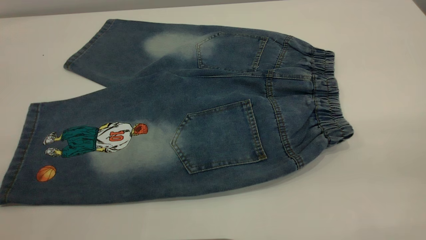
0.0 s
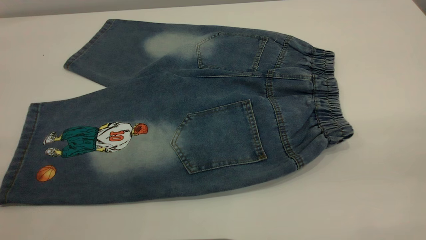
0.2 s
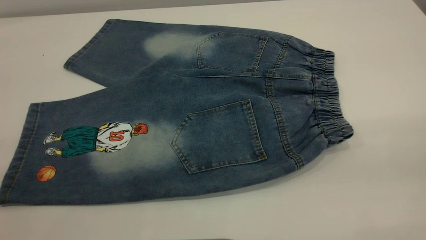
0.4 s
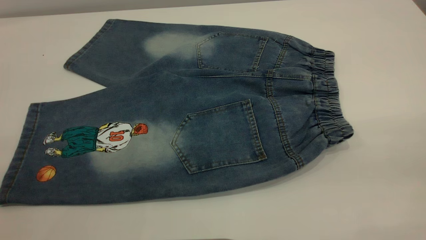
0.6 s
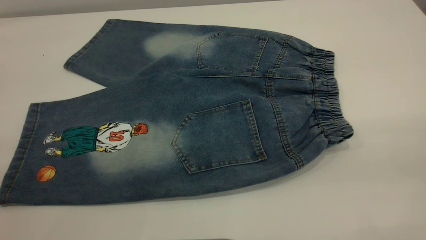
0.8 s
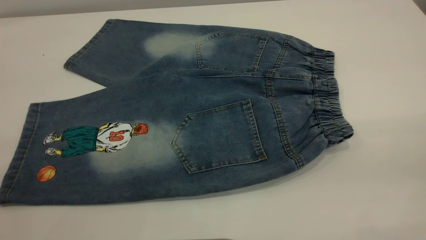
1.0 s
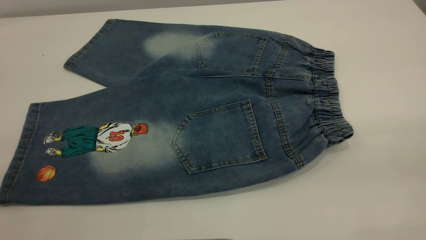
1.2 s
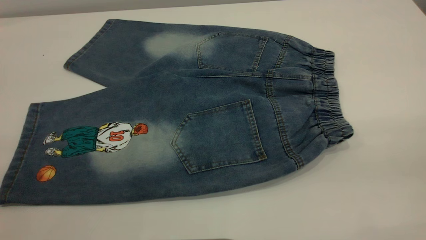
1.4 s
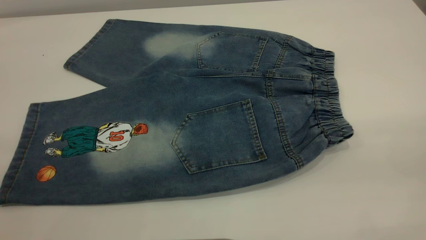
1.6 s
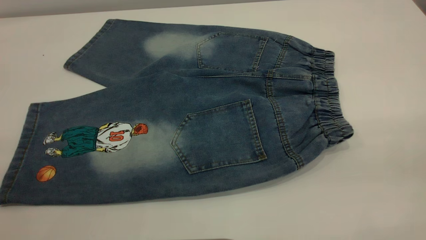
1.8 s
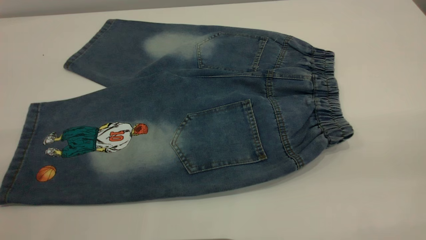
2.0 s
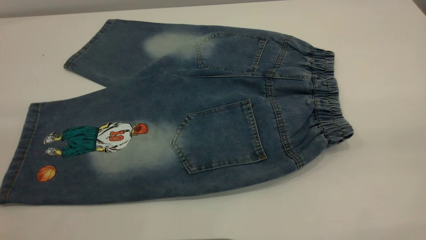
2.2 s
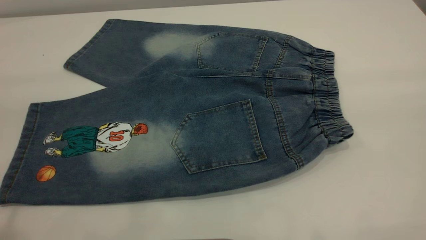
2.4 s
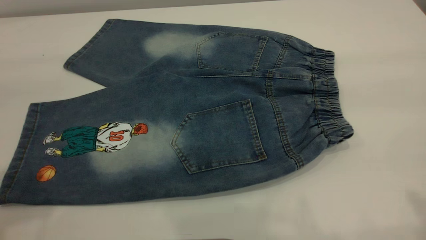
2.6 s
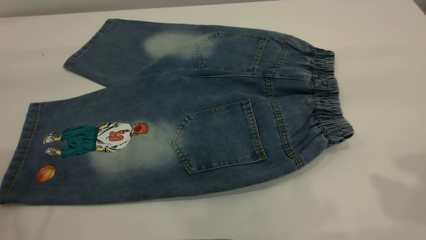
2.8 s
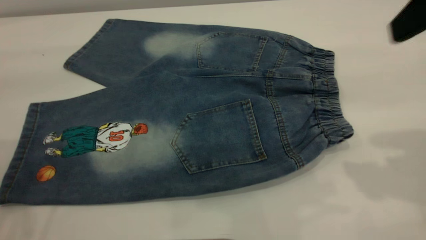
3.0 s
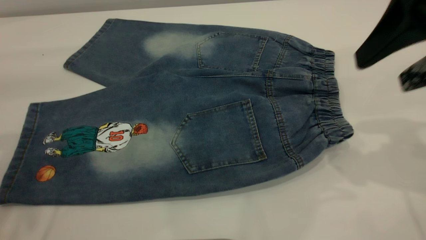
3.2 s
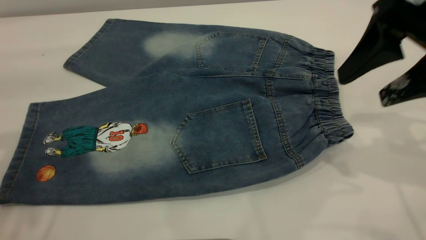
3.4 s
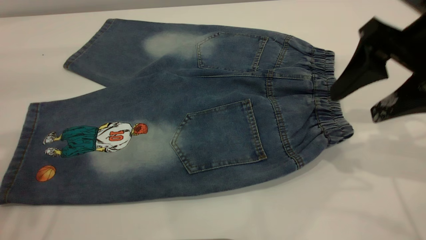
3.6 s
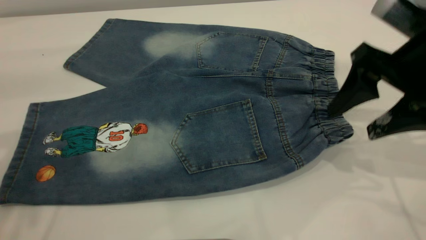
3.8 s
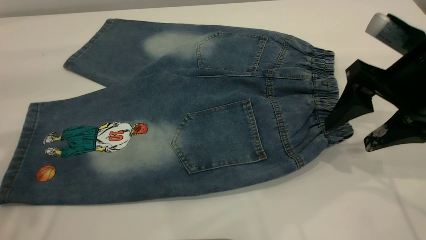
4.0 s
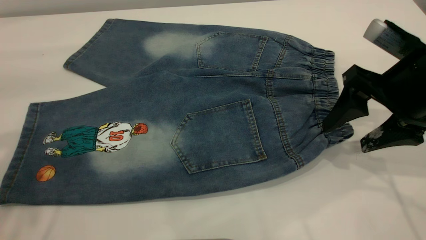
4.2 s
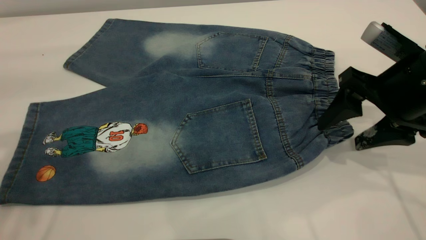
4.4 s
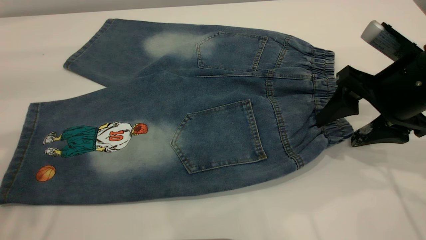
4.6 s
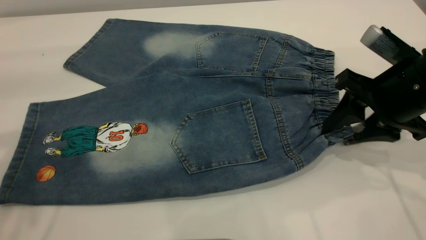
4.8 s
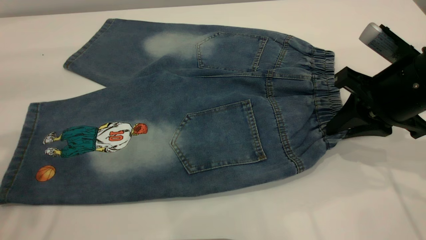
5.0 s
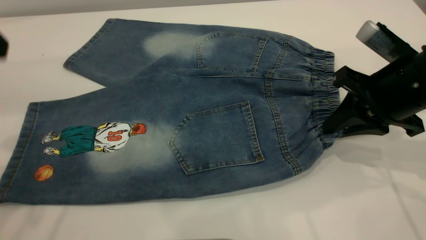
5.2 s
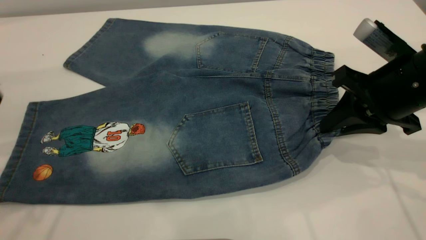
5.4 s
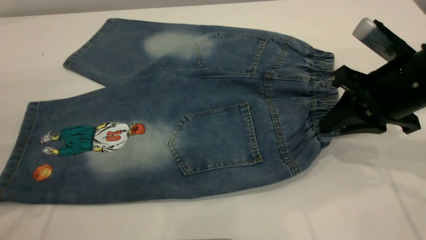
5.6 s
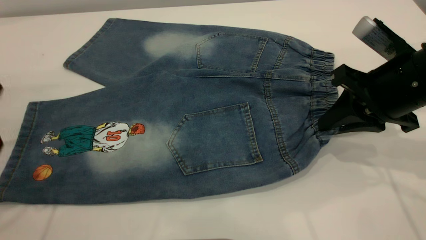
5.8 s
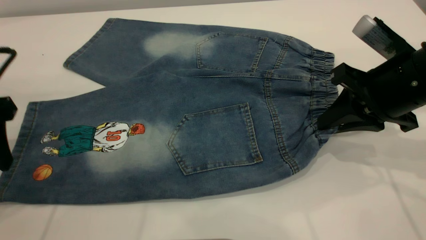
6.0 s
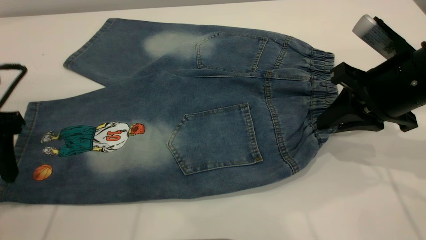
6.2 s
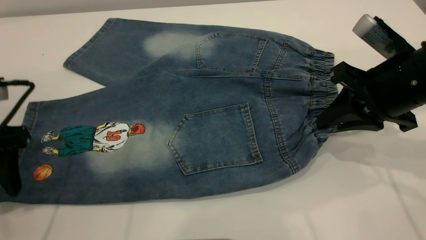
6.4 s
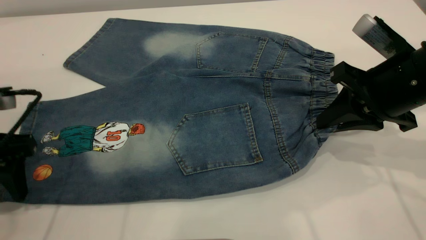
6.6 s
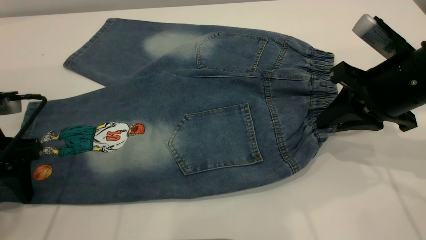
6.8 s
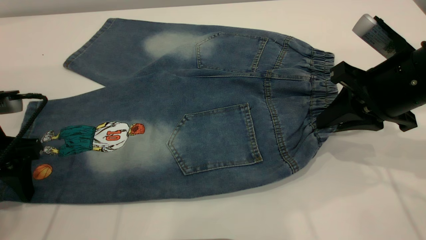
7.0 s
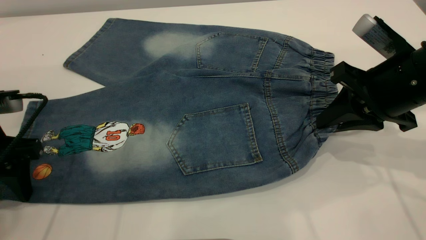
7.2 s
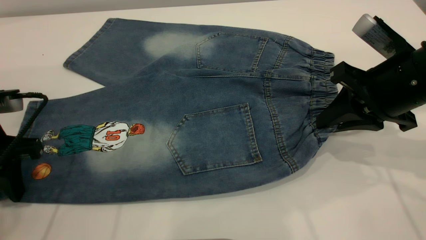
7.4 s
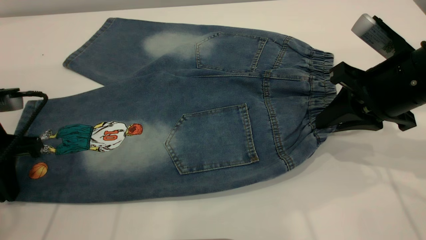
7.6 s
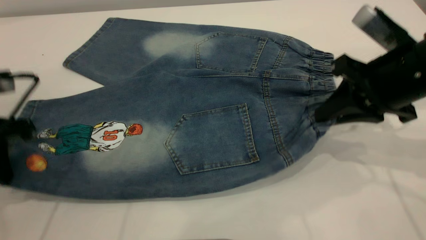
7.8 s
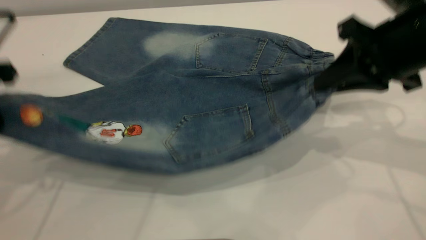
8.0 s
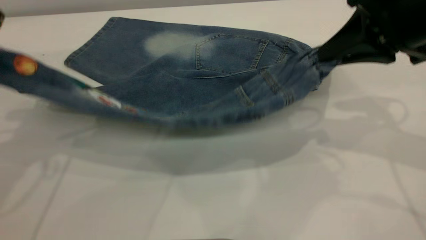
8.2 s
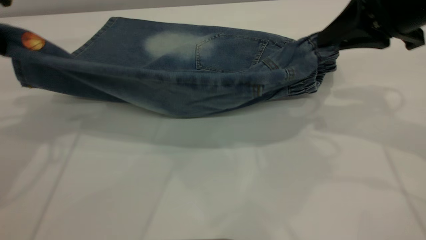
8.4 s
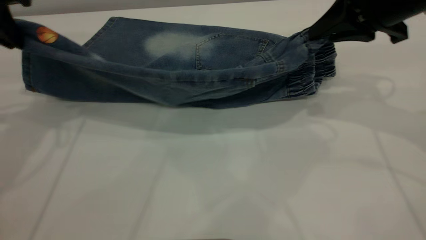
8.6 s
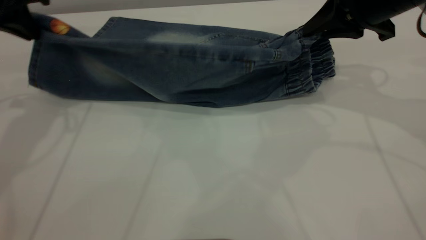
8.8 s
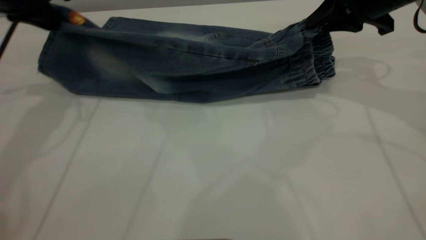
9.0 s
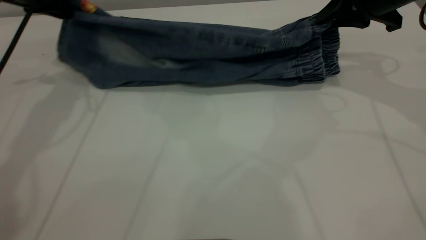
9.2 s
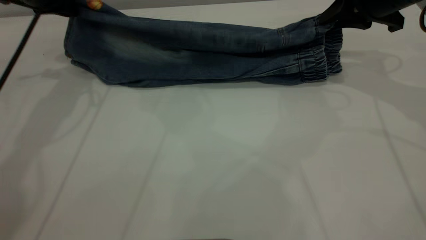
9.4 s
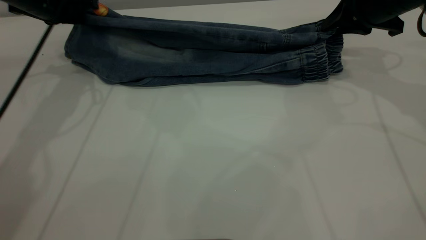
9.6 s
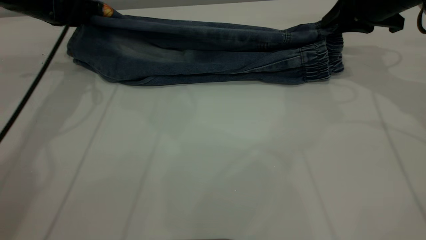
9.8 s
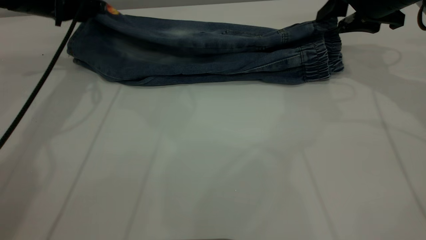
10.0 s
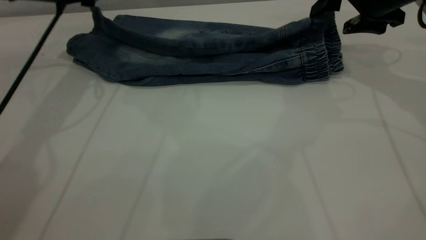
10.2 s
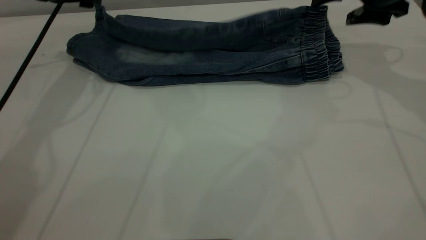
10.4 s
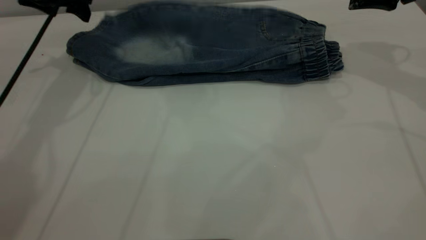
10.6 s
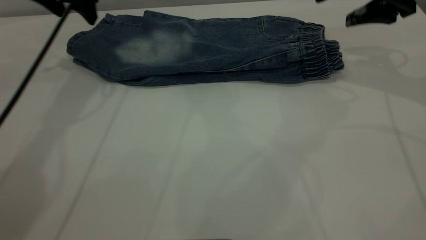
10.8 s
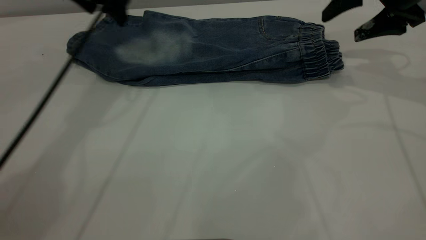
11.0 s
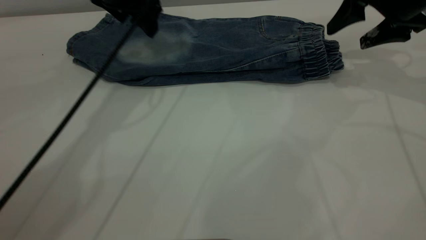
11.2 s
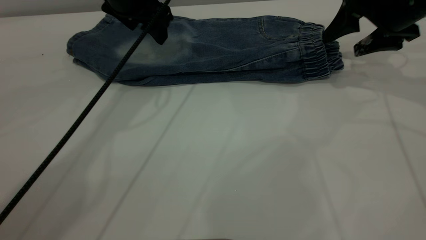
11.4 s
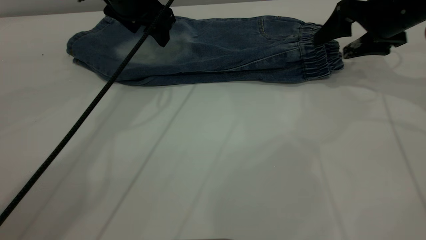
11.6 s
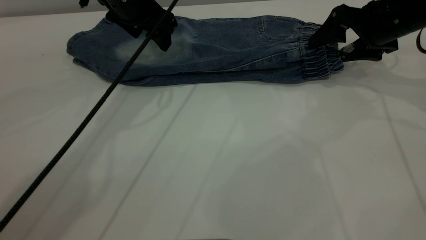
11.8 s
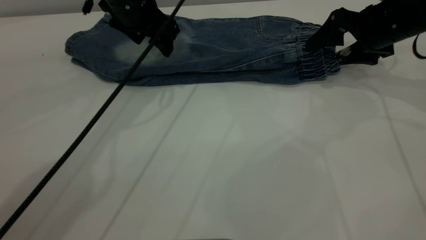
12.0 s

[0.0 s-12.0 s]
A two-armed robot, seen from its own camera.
Step, 0.0 to 10.6 s: Fold the bottom of the pants upward.
0.0 to 1.6 s: The two grippers keep their place.
1.6 to 3.0 s: The right gripper is displaced forward by approximately 20 cm.
3.0 to 4.4 s: The right gripper is displaced downward by about 15 cm.
4.4 to 6.0 s: The right gripper closes up. Meanwhile the left gripper shifts about 15 cm downward.
6.0 to 7.6 s: The left gripper moves downward, some 5 cm, and closes its fingers.
7.6 to 9.0 s: Both grippers move forward and upward, about 15 cm.
9.0 to 10.4 s: The left gripper heads forward, covering approximately 5 cm, and opens; the right gripper opens.
10.4 to 12.0 s: The right gripper goes some 5 cm downward. Meanwhile the left gripper goes about 15 cm to the right.

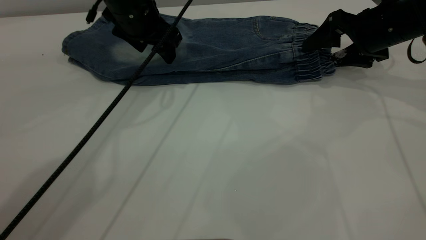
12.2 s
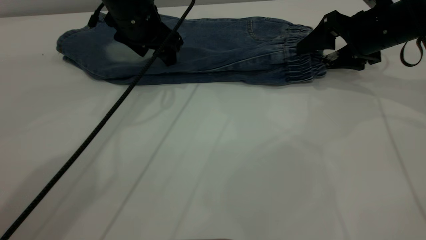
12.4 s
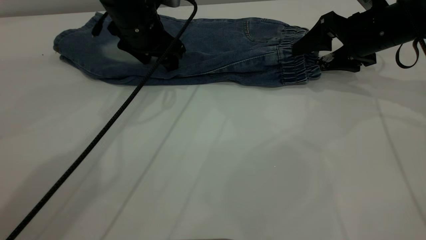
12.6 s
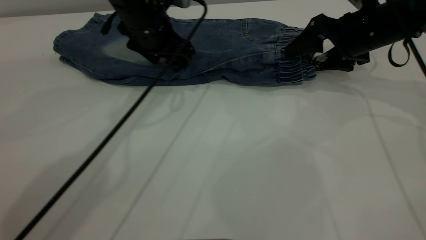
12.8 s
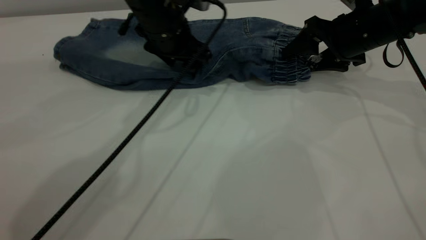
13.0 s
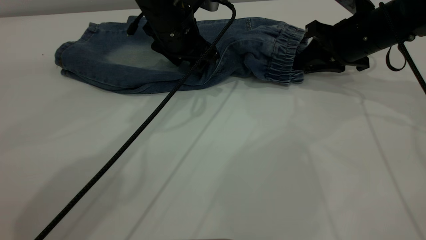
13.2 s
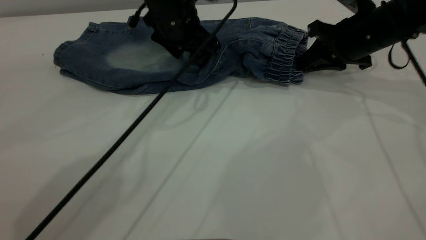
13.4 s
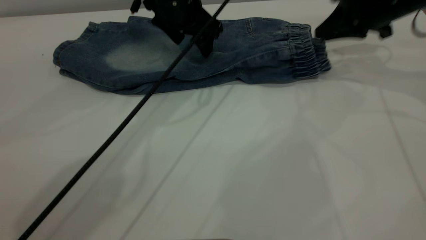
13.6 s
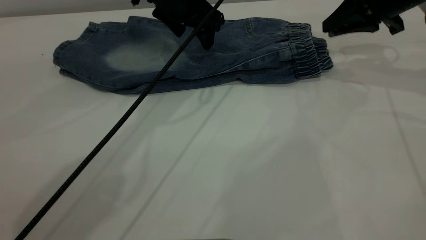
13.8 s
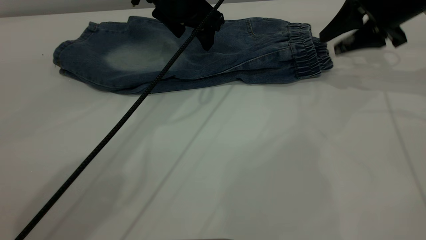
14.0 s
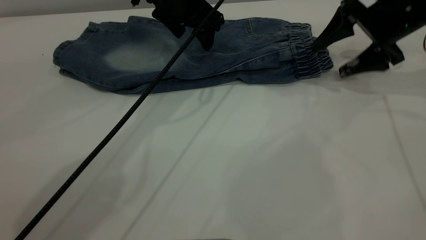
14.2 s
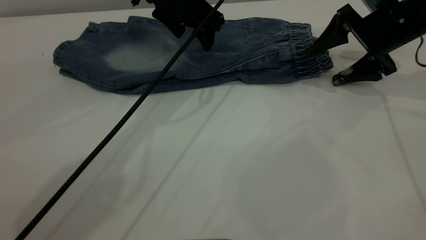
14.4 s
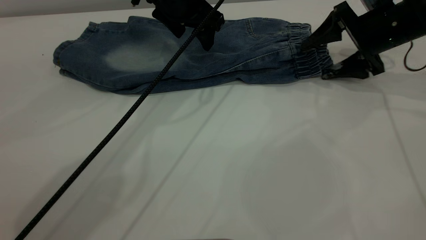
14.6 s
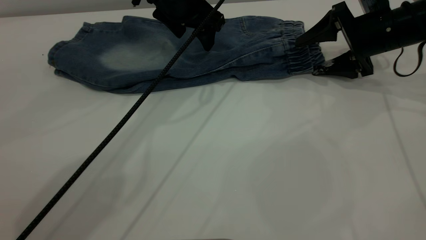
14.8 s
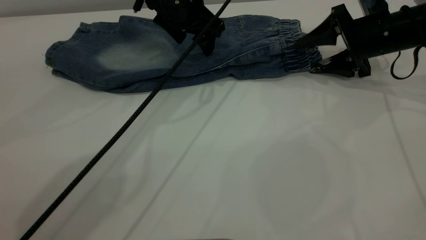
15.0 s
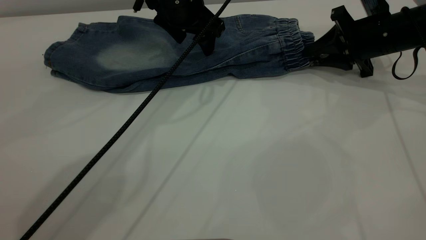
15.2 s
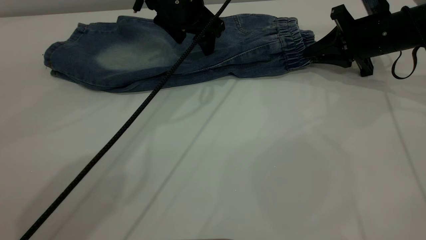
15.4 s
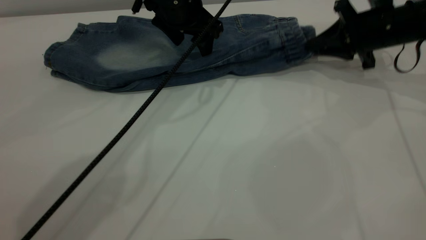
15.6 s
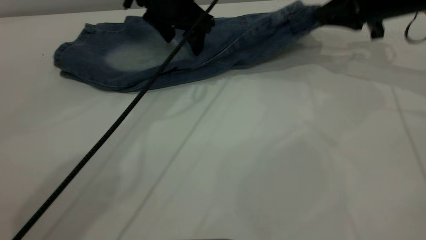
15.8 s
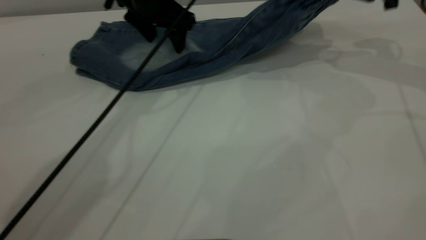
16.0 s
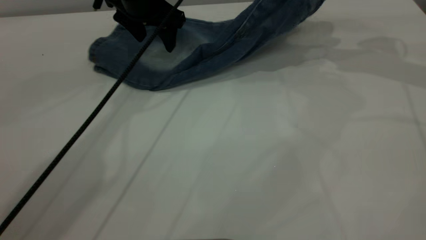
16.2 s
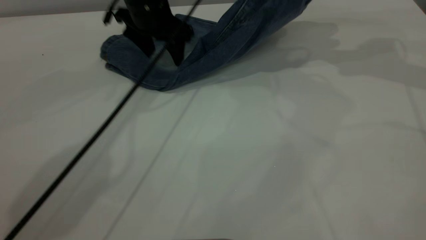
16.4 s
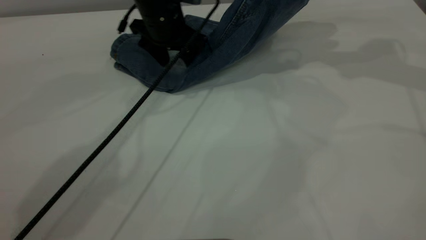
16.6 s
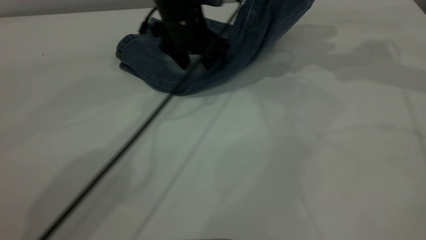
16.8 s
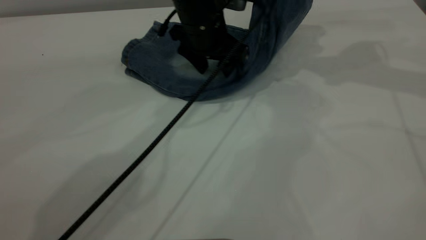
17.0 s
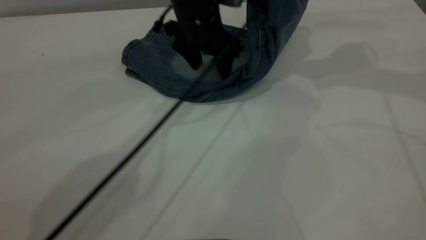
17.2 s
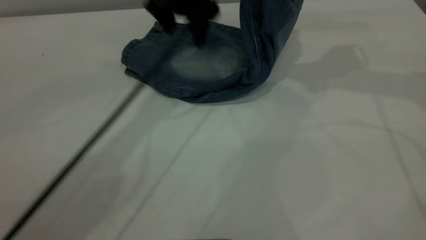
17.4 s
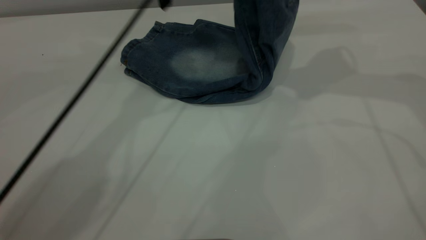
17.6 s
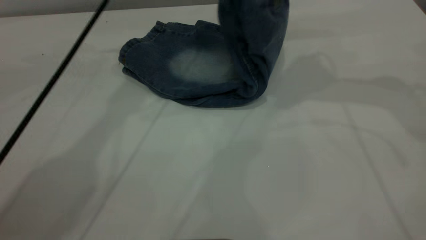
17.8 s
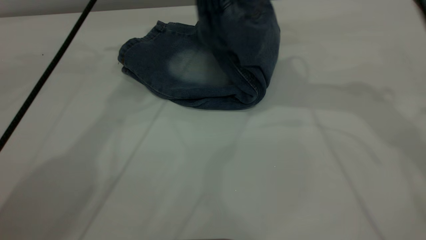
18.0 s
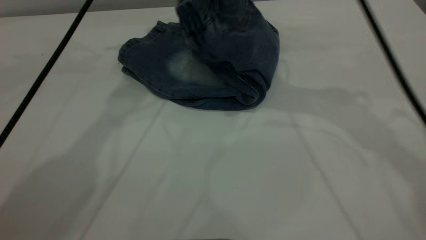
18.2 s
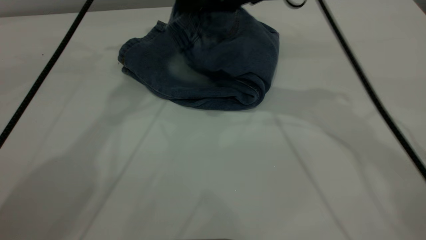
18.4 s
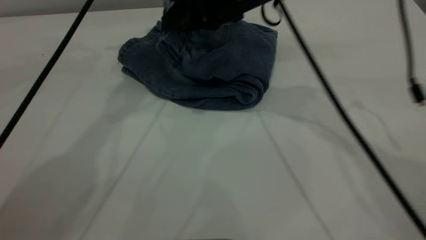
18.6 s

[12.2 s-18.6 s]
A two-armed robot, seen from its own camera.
12.2 to 13.8 s: The right gripper goes some 5 cm upward, and closes its fingers, while the left gripper heads to the right, covering roughly 5 cm.
13.8 to 15.4 s: The right gripper goes roughly 10 cm downward, and opens, then closes once more.
15.4 to 17.0 s: The left gripper shifts by about 5 cm; the right gripper goes some 20 cm upward.
17.0 to 18.6 s: The left gripper travels upward and to the left by roughly 20 cm; the right gripper travels to the left and downward by some 25 cm.
